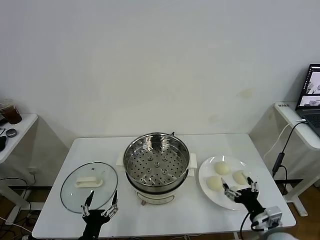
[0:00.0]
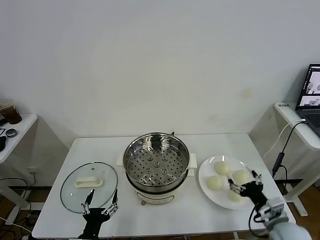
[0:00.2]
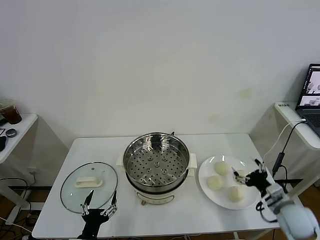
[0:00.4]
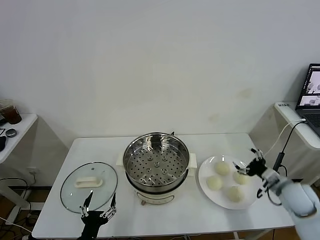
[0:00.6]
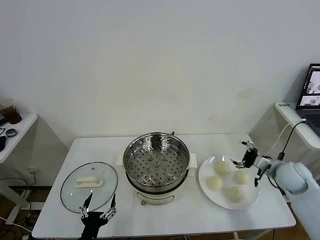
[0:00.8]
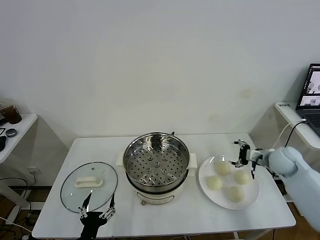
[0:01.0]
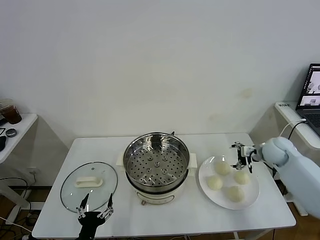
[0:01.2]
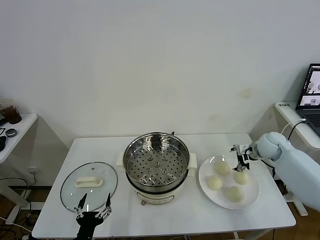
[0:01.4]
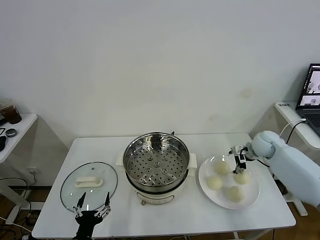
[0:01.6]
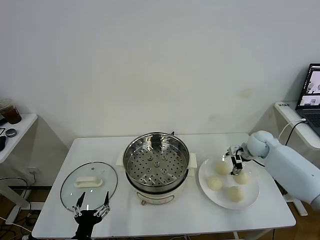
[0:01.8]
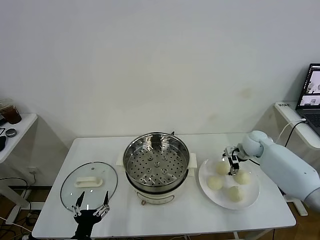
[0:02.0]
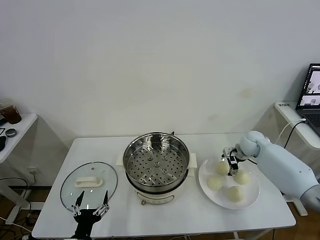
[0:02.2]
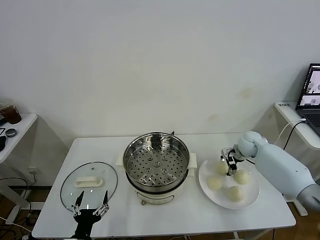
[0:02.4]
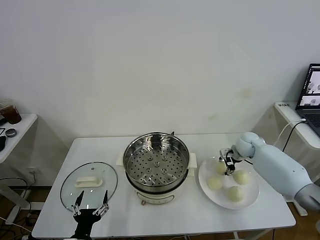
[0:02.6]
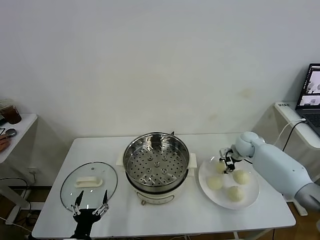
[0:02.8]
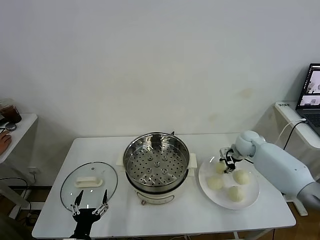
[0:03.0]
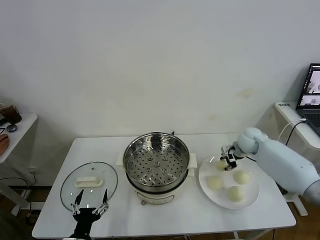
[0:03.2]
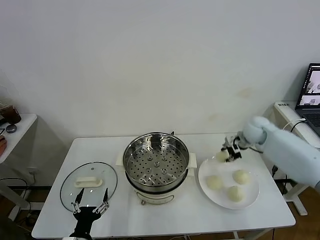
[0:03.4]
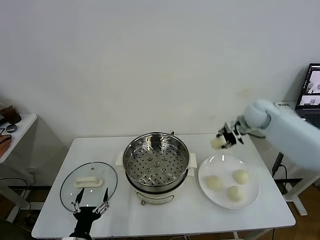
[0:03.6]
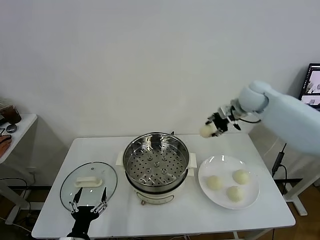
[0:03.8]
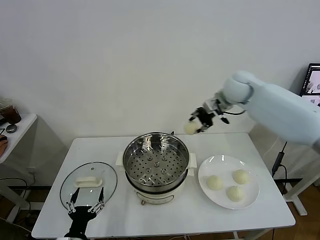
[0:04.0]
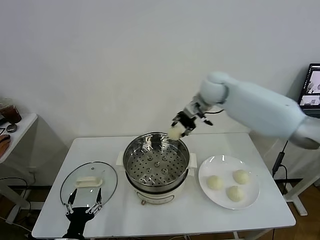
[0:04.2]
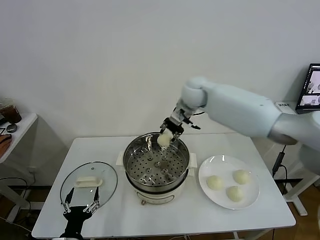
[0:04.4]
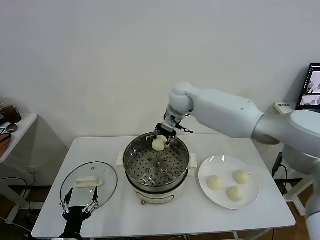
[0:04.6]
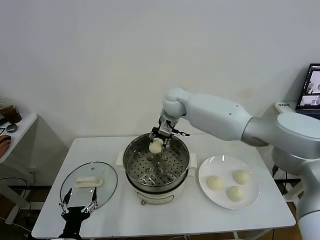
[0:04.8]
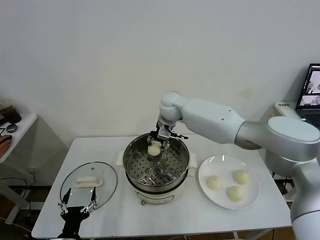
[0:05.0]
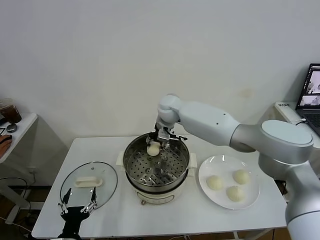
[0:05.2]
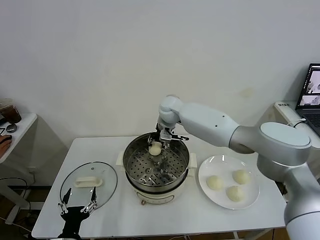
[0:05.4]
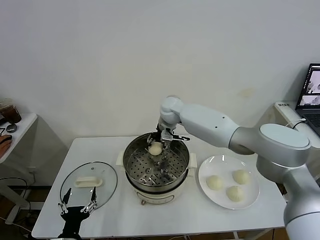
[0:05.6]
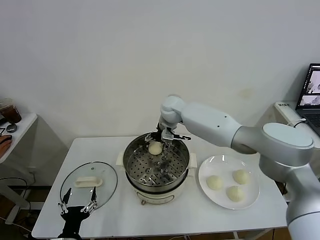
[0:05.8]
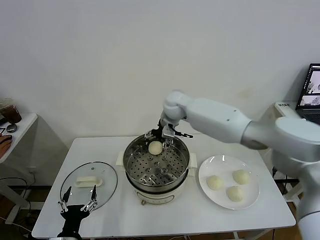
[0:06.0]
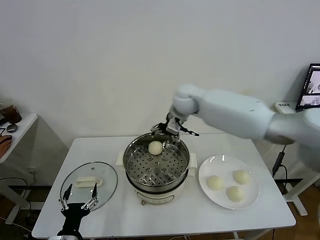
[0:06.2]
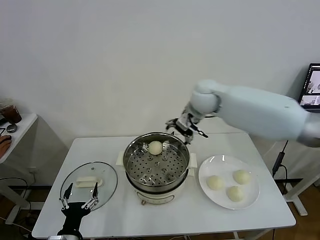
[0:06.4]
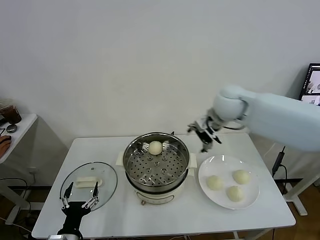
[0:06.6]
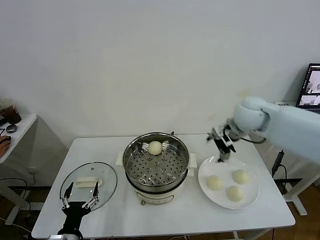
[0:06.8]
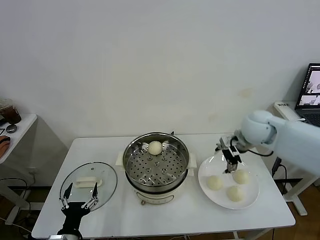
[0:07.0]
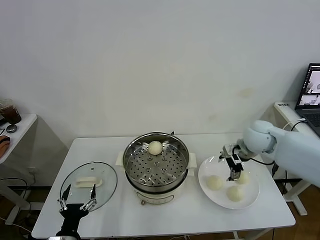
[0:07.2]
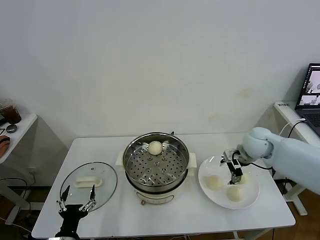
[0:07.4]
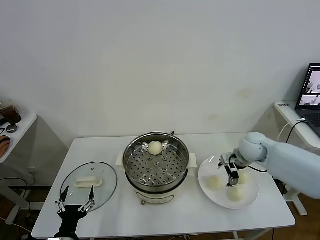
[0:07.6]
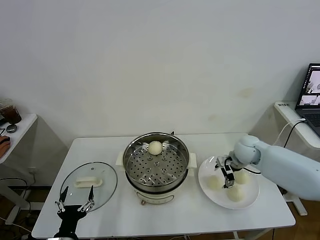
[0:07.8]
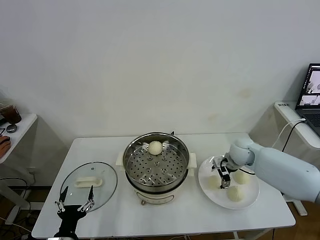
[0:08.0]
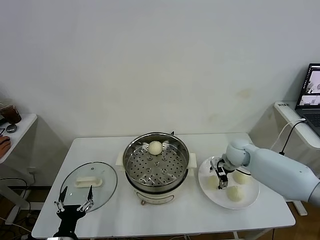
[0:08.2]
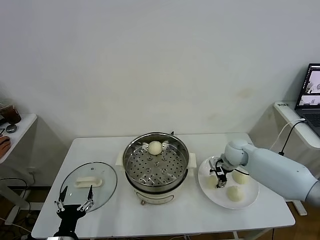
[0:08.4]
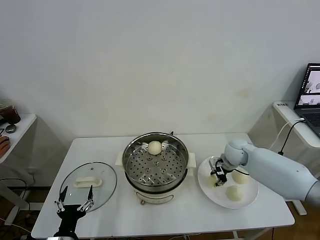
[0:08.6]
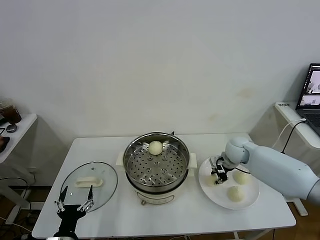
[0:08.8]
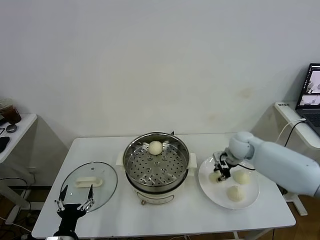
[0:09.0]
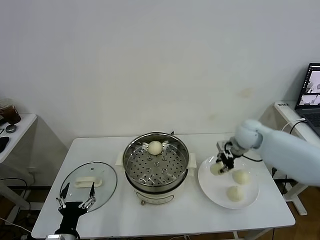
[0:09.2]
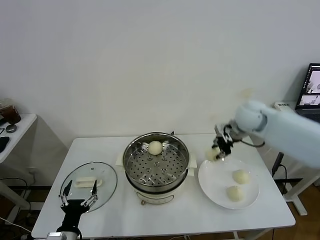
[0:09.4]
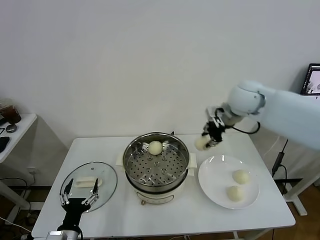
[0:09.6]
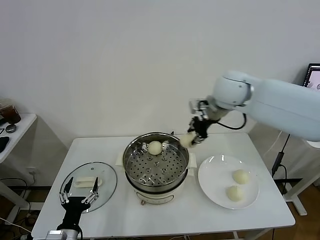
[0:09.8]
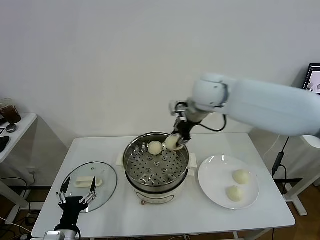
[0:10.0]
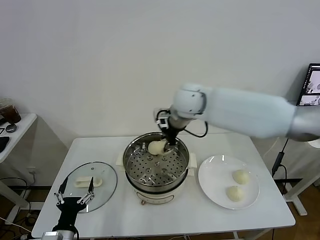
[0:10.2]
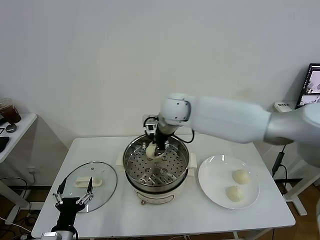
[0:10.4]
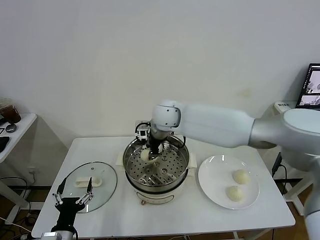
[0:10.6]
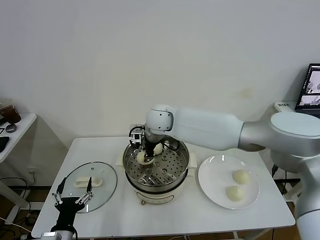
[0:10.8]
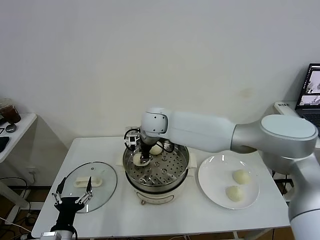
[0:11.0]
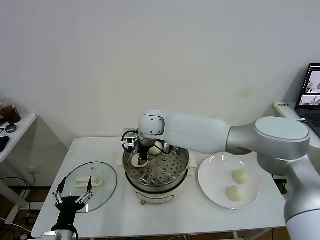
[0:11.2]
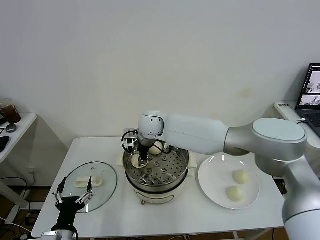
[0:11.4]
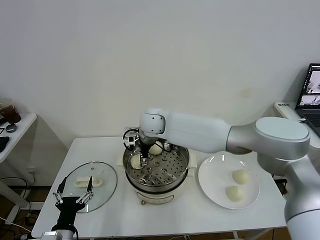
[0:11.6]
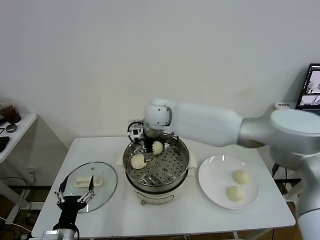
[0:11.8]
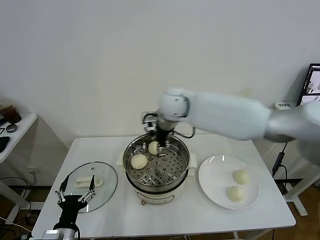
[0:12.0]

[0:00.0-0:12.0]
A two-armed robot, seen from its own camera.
Task of the whole recording: take steamed baozi put them in steamer.
Step, 0:00.0 to 0:02.8: Grasp the baozi in the plate with right gripper.
Step, 0:03.0 to 0:06.0: Place the baozi on the steamer with right gripper.
Step, 0:06.2 to 0:08.6: Grasp the baozi in the plate with right gripper.
Step, 0:08.8 to 0:11.8: Place the baozi on the steamer with right gripper.
0:01.6 to 0:03.0: The right gripper closes.
0:03.0 to 0:04.4: The right gripper is displaced to the left and upward by approximately 30 cm.
0:04.4 to 0:06.0: The right gripper opens.
0:06.0 to 0:07.6: The right gripper moves to the right and downward, about 30 cm.
0:07.6 to 0:09.0: The right gripper closes its fingers.
0:09.0 to 0:10.4: The right gripper is displaced to the left and upward by approximately 30 cm.
0:10.4 to 0:12.0: The right gripper ends up approximately 5 cm from where it was, and opens up.

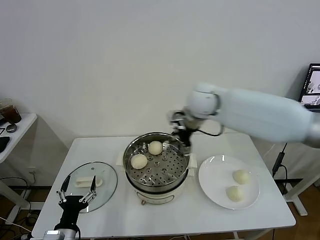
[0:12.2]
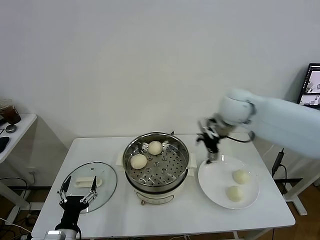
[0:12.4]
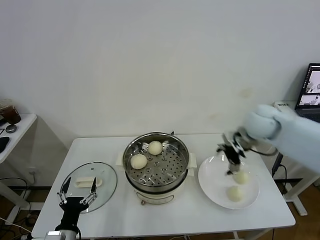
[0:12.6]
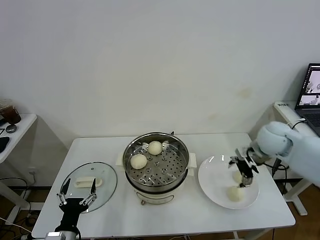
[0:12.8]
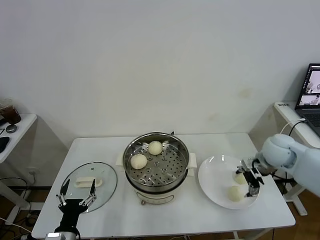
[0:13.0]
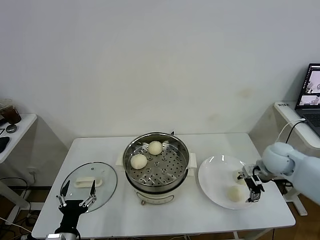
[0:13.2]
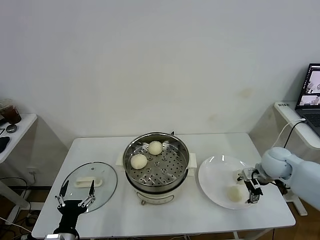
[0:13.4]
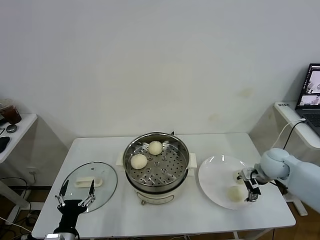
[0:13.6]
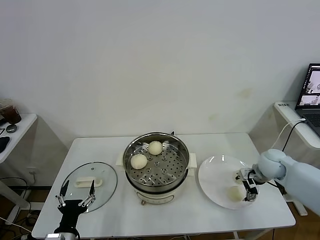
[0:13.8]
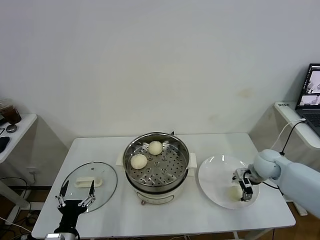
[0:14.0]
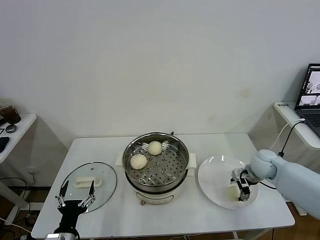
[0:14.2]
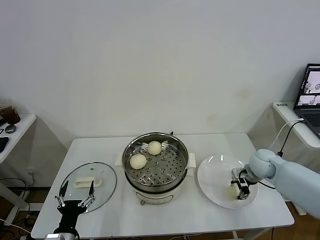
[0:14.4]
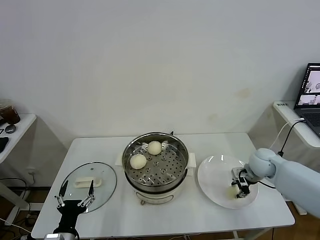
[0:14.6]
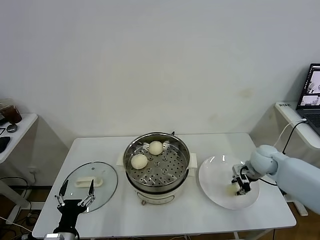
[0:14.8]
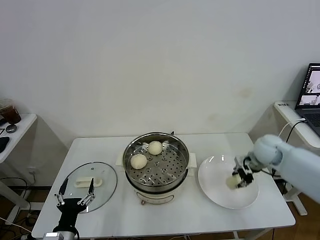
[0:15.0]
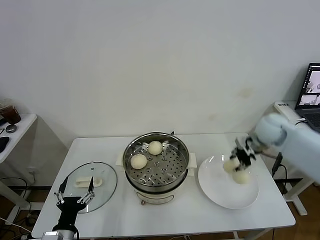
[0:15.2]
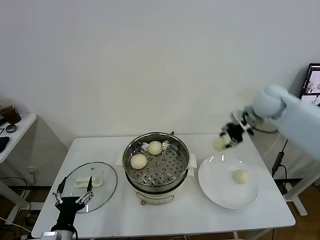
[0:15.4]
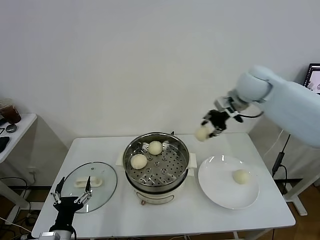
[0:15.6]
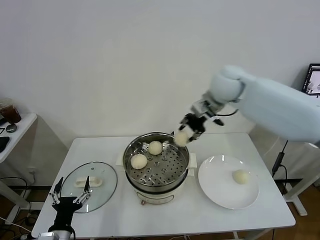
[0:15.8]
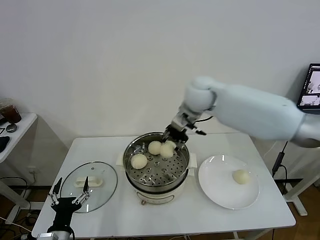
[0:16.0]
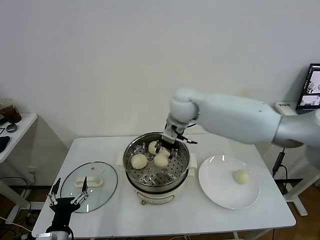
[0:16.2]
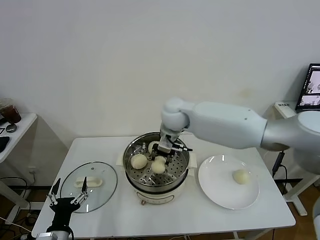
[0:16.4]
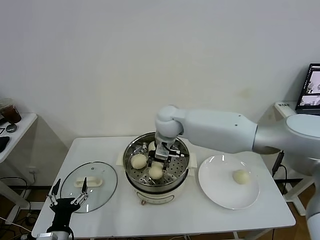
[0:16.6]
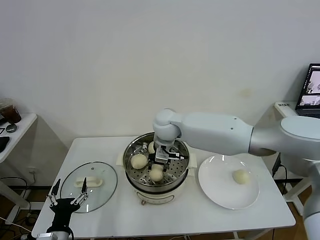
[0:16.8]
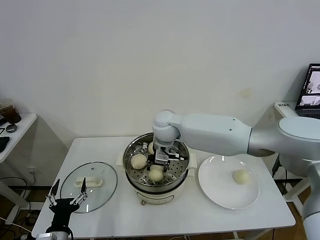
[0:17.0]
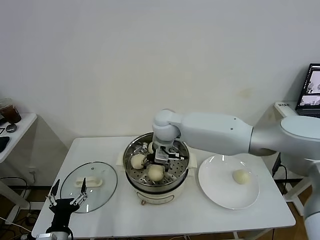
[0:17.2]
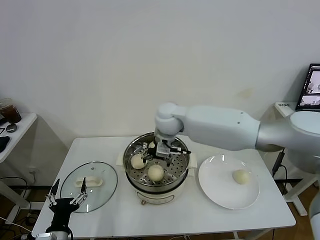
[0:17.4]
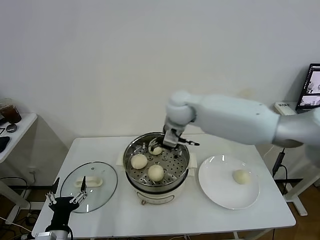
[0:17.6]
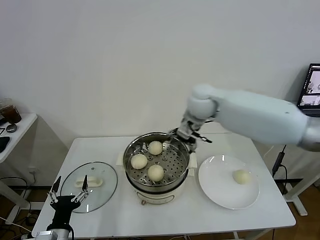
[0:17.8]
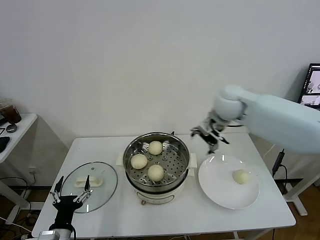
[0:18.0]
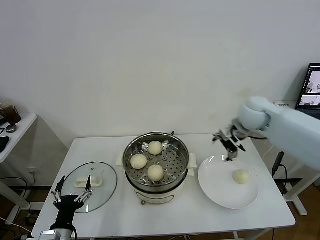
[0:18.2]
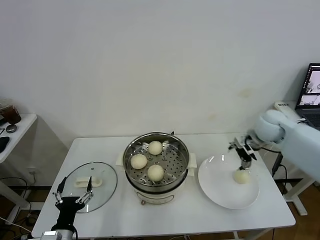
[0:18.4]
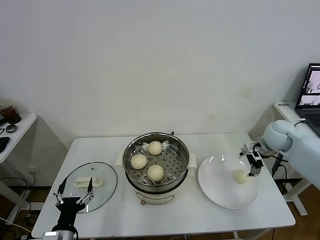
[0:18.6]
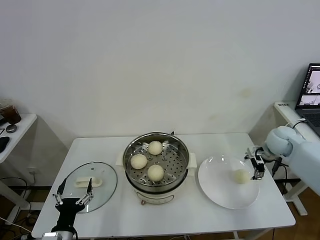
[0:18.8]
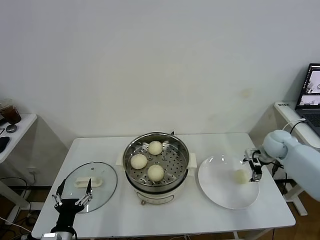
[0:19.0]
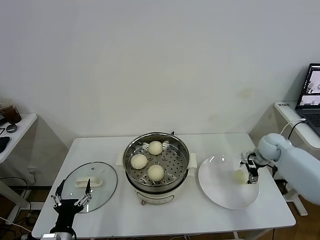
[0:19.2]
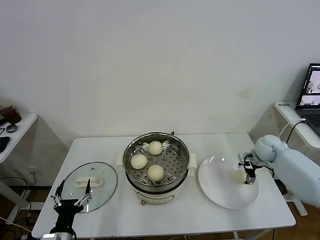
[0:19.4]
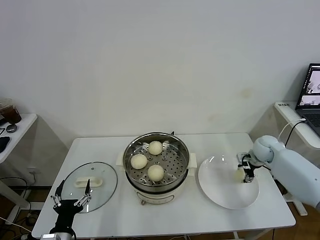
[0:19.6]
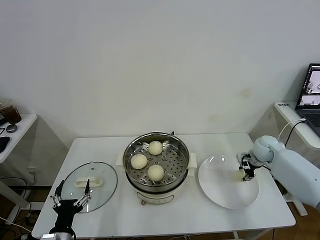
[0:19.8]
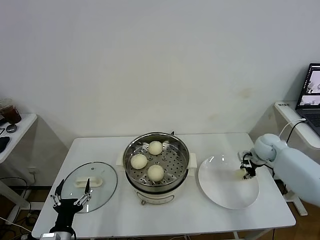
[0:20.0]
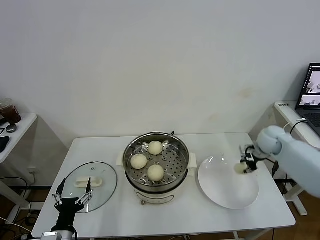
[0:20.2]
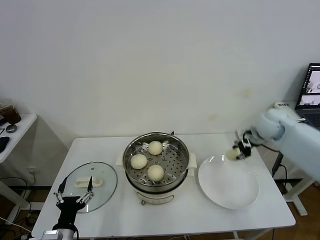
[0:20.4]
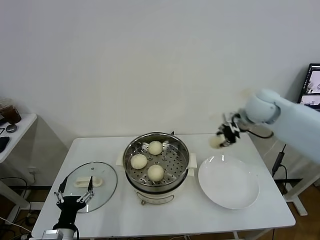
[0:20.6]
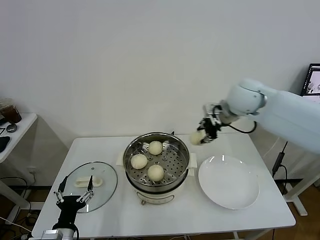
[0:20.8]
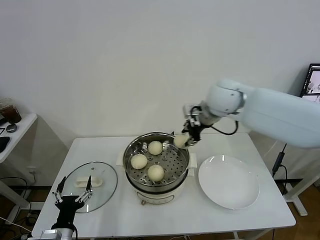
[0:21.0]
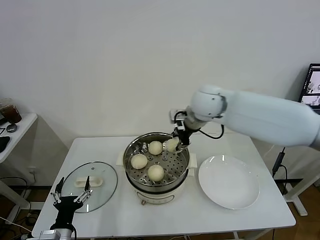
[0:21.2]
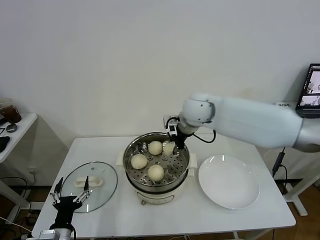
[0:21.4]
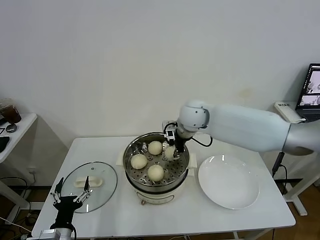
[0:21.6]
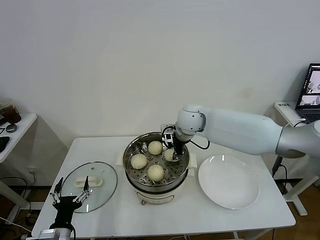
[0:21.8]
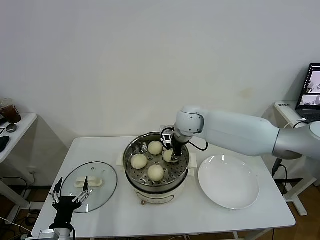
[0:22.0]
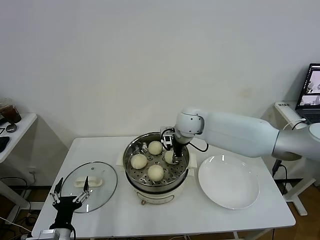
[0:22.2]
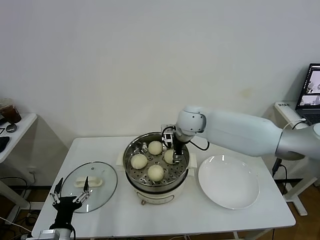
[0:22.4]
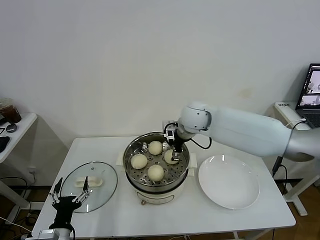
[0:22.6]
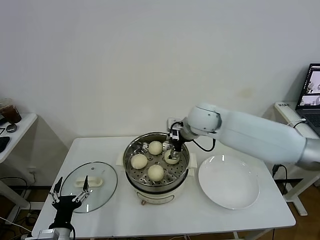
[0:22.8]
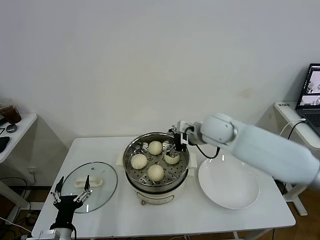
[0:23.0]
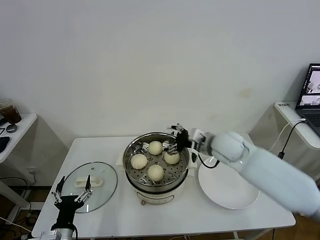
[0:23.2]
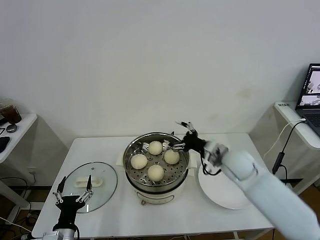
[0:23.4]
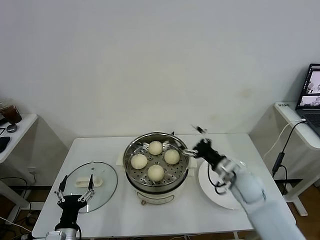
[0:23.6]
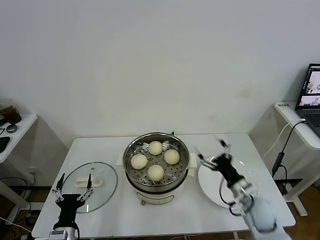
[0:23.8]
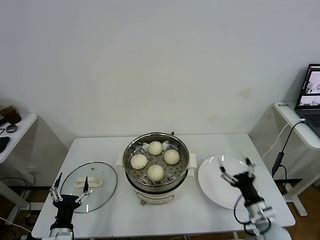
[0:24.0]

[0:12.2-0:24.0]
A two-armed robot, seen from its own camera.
Task of the whole recording: take steamed baozi put them in steamer.
Step, 0:12.2 to 0:14.6: Grasp the baozi in the plate with right gripper.
Step, 0:14.8 to 0:17.4: Place the baozi on the steamer with right gripper.
Step, 0:17.6 to 0:19.8: Grasp the baozi in the plate with right gripper.
Step, 0:20.2 to 0:22.4: Place the baozi on the steamer with right gripper.
0:12.2 to 0:13.6: The right gripper is displaced to the right and downward by some 30 cm.
0:13.6 to 0:15.2: The right gripper is displaced upward and forward by approximately 15 cm, and closes its fingers.
0:15.2 to 0:16.6: The right gripper moves to the left, about 35 cm.
0:16.6 to 0:18.2: The right gripper goes some 30 cm to the right, and opens its fingers.
0:18.2 to 0:19.6: The right gripper moves downward and to the right, about 20 cm, and closes.
0:19.6 to 0:21.0: The right gripper goes approximately 35 cm upward and to the left, and closes up.
0:21.0 to 0:22.6: The right gripper moves downward and to the left, roughly 10 cm, and opens its fingers.
0:22.6 to 0:24.0: The right gripper moves backward, downward and to the right, roughly 40 cm.
